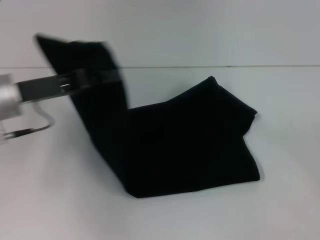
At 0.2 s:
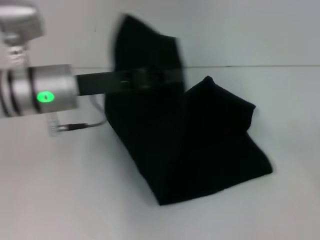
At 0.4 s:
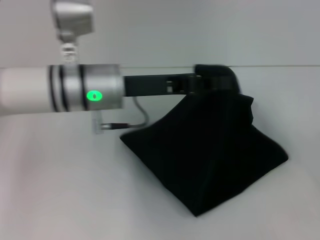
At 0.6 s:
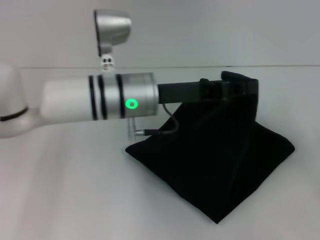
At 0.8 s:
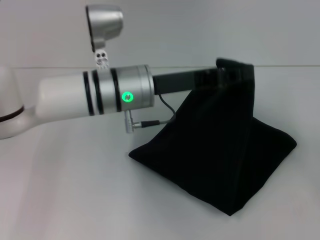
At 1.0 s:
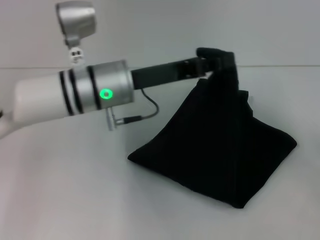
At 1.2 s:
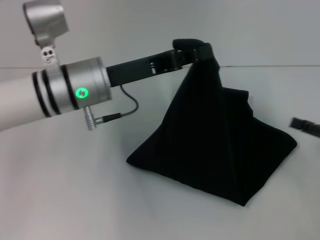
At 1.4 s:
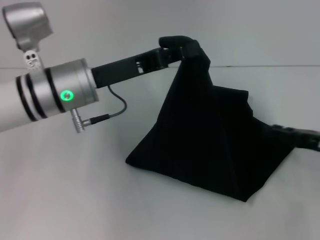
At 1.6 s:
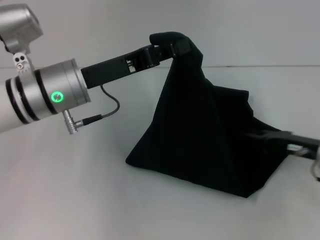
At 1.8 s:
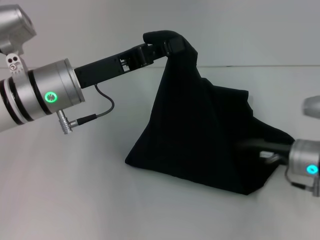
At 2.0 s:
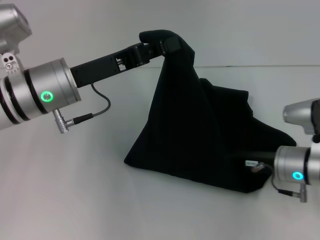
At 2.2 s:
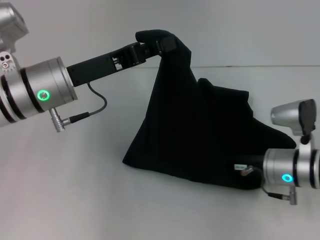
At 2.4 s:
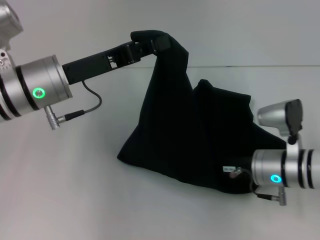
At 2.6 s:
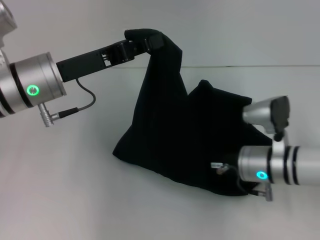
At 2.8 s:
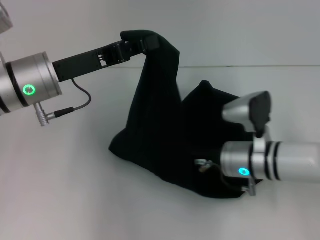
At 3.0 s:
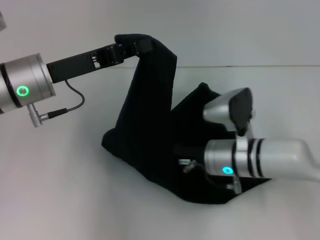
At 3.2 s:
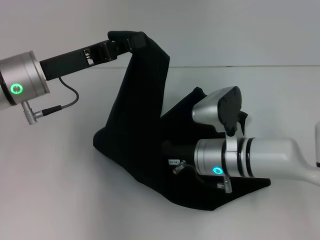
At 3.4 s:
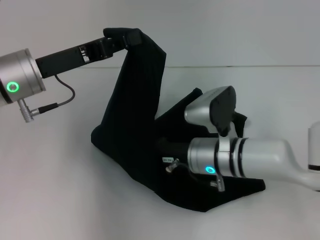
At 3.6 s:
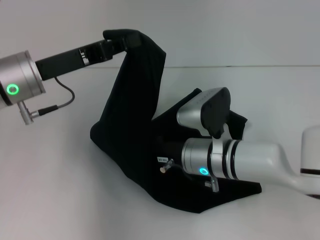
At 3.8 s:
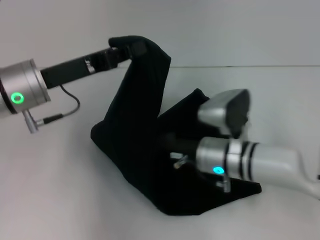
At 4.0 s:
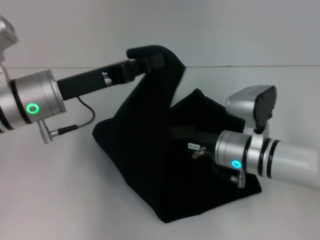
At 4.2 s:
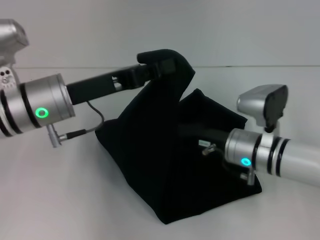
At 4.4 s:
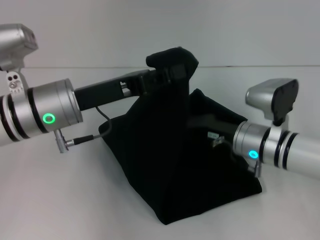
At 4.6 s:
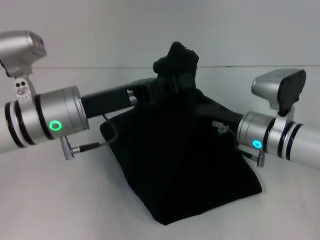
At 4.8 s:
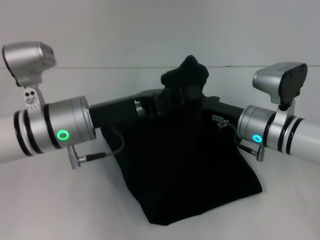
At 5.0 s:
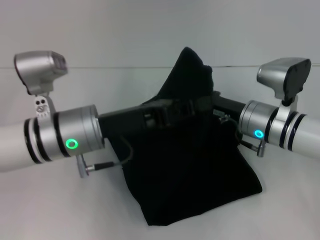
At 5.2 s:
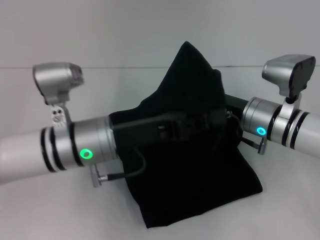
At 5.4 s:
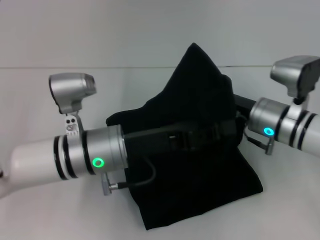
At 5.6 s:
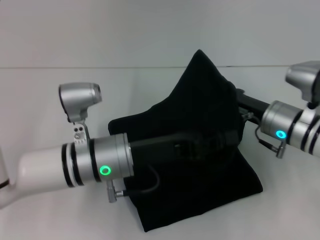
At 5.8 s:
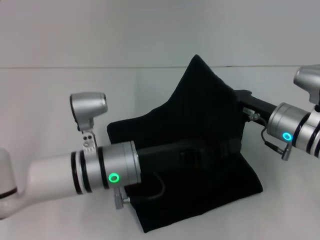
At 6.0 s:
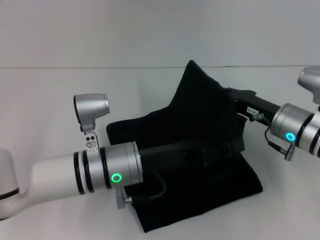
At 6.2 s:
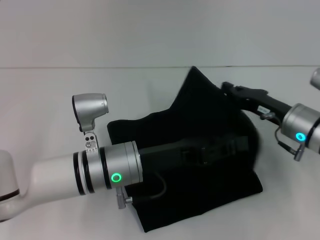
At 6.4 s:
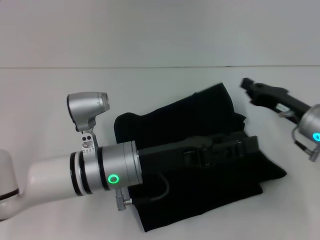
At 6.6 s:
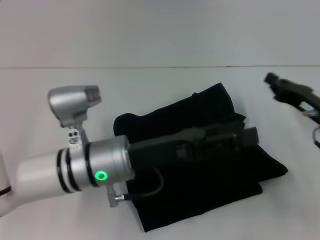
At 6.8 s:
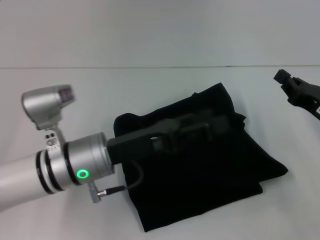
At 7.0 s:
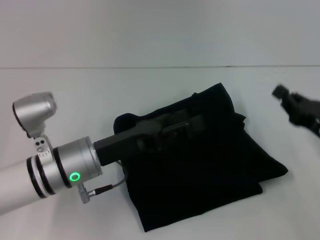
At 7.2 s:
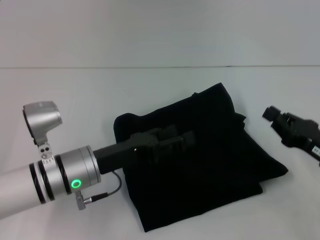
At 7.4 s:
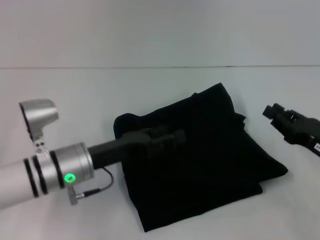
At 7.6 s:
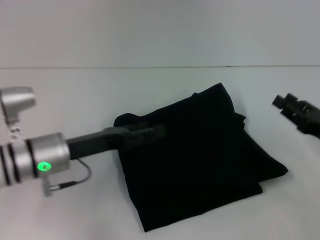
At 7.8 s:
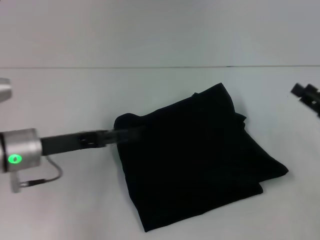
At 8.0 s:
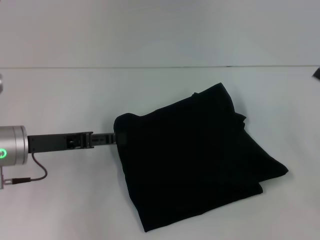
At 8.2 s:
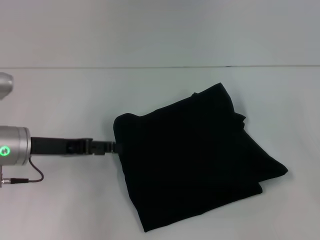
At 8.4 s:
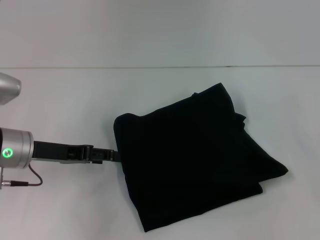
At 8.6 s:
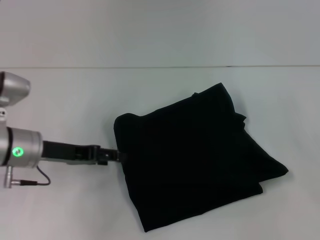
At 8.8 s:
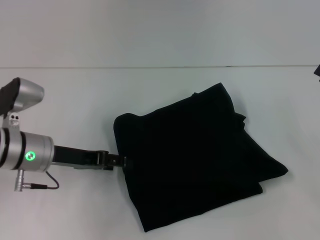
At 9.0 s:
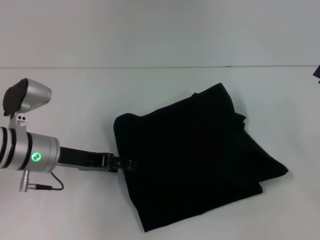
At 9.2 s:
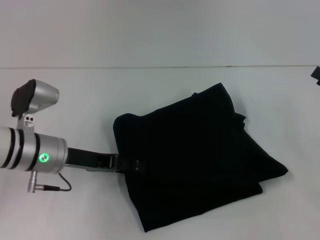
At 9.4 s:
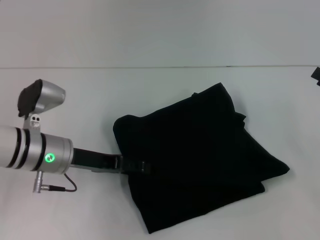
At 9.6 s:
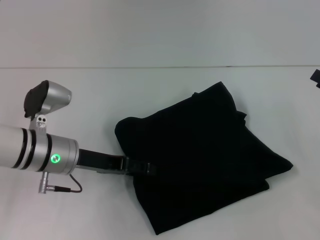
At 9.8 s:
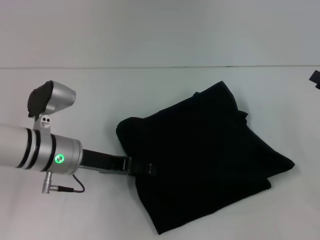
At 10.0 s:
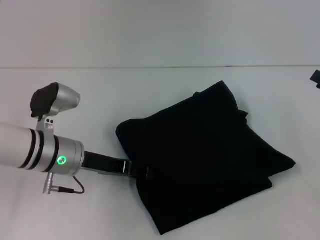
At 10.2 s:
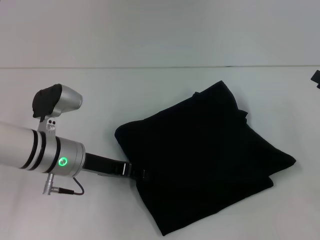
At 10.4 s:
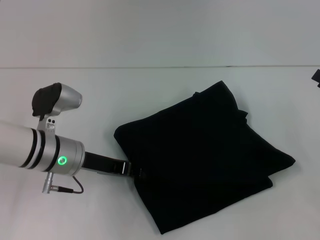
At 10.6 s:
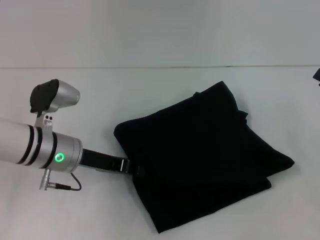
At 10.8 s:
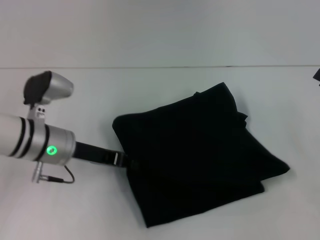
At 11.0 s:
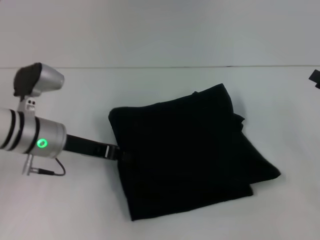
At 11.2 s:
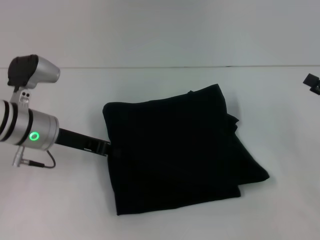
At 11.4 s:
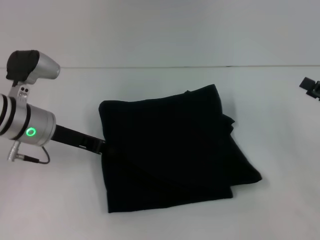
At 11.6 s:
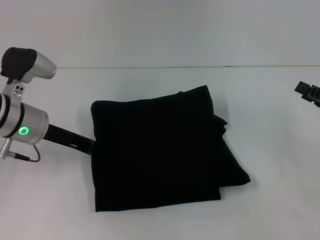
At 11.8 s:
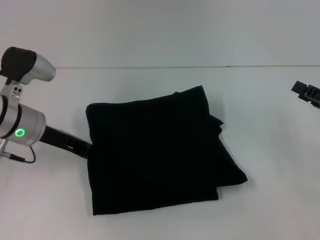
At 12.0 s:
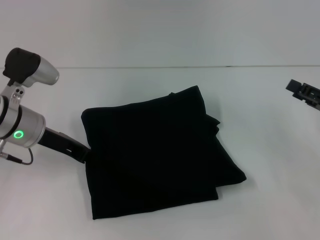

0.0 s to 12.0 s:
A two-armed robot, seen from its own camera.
Step, 0.0 to 7.2 s: Fold the clothes with your left hand.
0.0 to 1.6 s: The left gripper shifts some 10 cm to the right. The right gripper travels to the left and forward by roughly 15 cm.
1.6 to 3.0 s: The right gripper moves to the left, approximately 15 cm, and closes.
4.4 to 6.0 s: The left gripper travels downward and to the right by about 10 cm; the right gripper travels to the right by some 5 cm.
6.0 to 7.6 s: The left gripper heads to the left, covering about 10 cm, and opens, while the right gripper heads to the right and backward, covering roughly 15 cm.
7.6 to 9.0 s: The right gripper travels to the right and upward by roughly 10 cm, and opens its fingers.
9.0 to 10.4 s: The left gripper closes.
10.4 to 12.0 s: The left gripper moves about 5 cm, and closes up.

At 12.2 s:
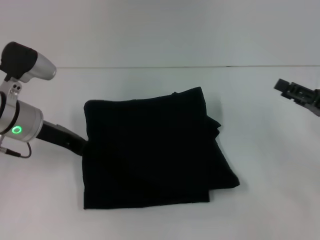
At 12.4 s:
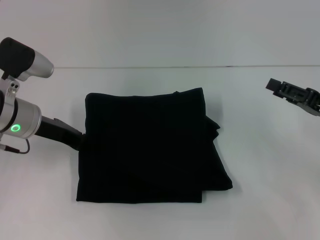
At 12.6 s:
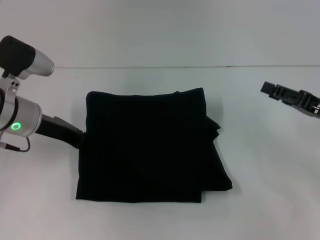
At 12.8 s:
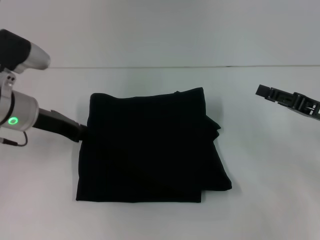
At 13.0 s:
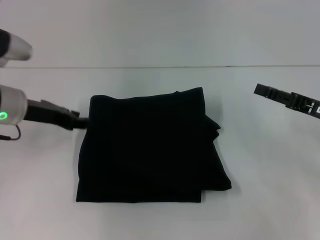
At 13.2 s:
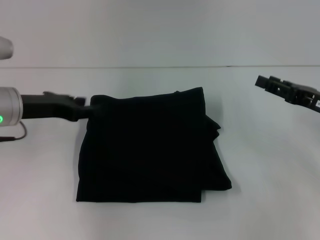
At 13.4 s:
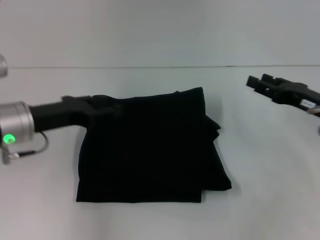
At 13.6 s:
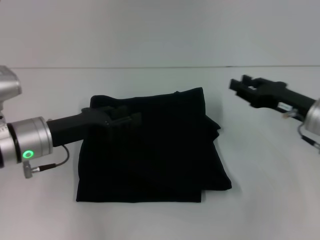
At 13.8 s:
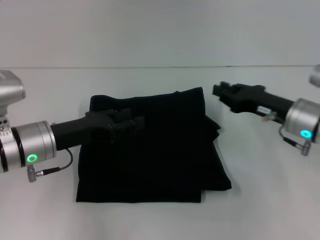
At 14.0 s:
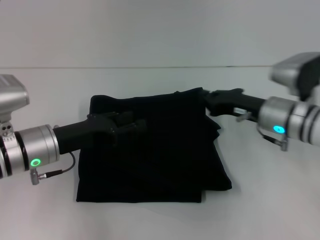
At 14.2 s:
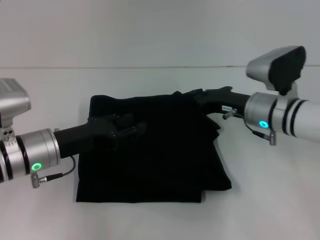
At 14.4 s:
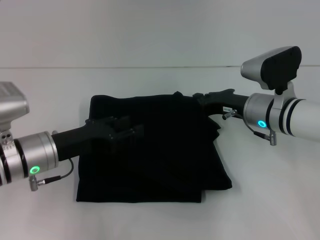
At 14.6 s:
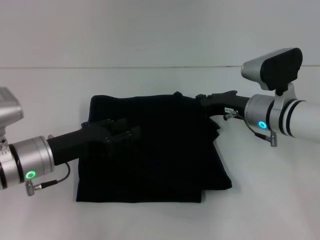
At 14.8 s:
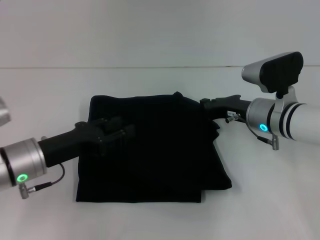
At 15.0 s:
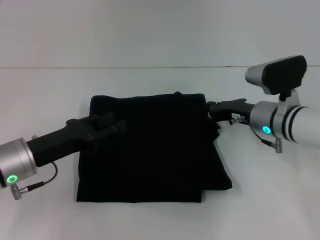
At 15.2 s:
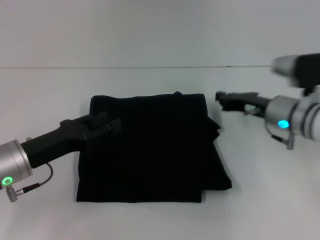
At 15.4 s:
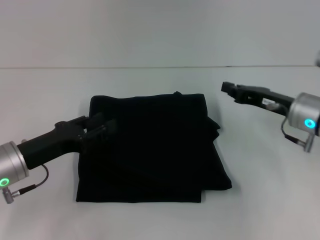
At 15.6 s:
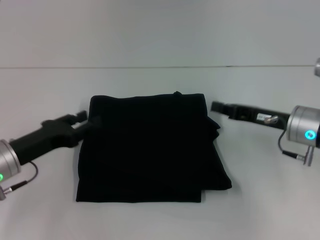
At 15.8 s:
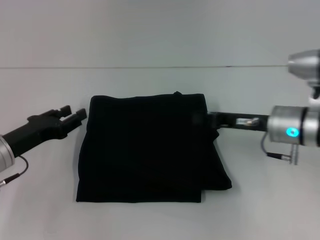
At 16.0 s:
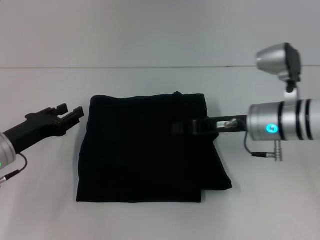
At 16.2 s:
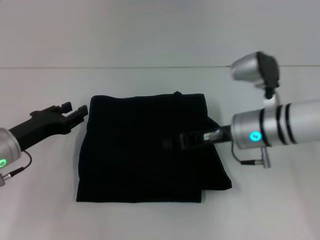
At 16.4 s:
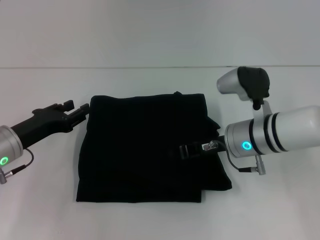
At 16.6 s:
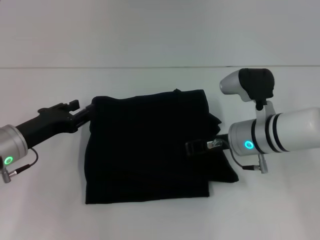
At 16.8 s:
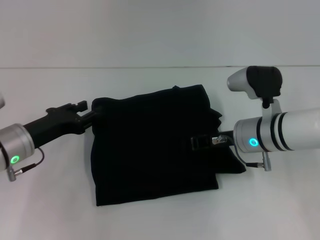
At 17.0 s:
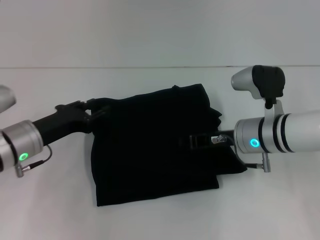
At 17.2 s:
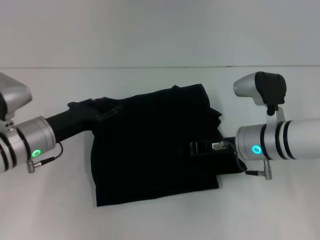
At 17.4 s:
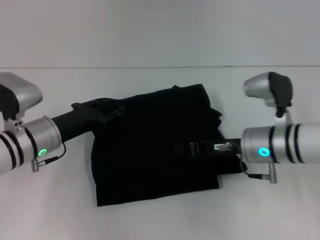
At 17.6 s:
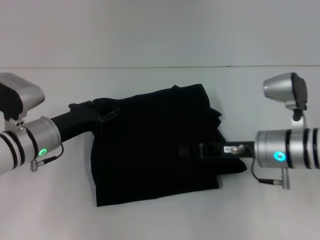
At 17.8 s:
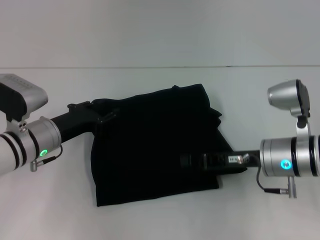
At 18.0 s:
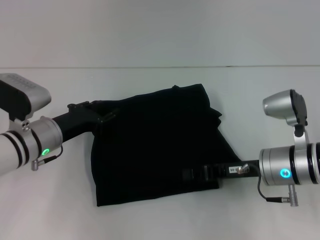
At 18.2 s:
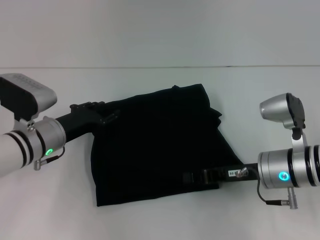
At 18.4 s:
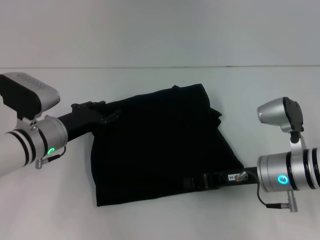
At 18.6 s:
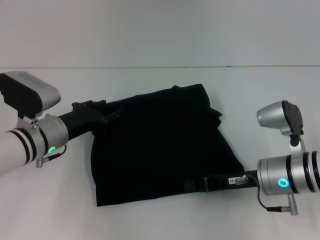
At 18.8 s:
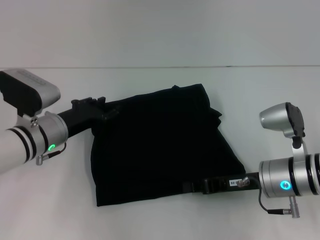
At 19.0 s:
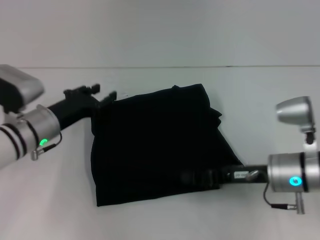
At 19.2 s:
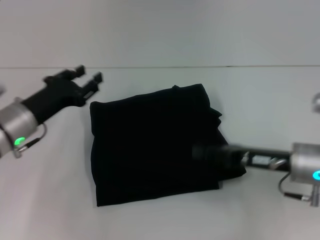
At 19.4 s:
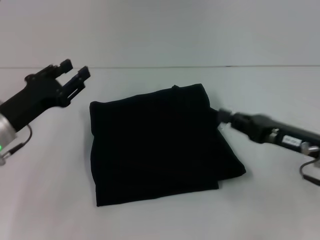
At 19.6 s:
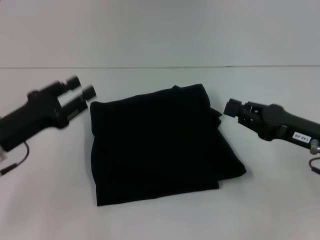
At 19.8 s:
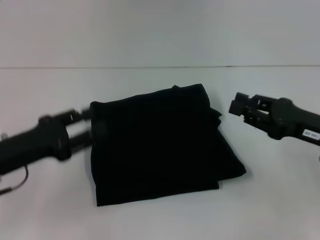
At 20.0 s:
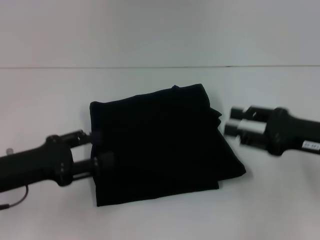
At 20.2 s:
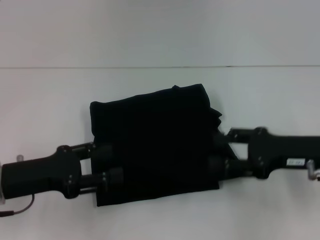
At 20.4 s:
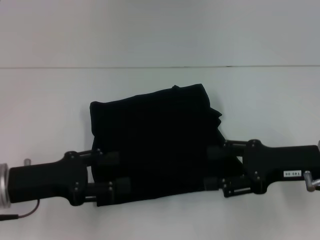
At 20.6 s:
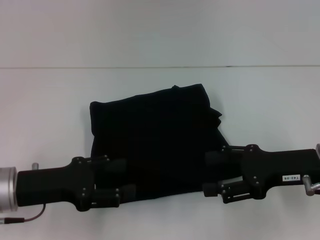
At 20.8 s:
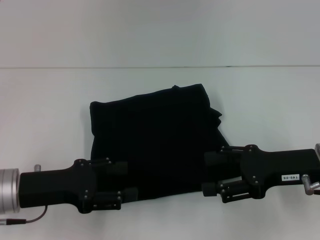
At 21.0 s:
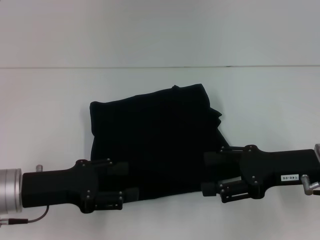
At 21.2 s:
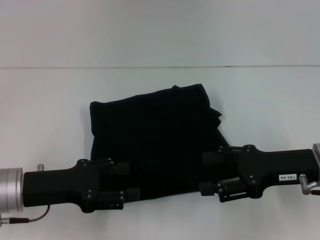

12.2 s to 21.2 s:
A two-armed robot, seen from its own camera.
12.2 to 13.8 s: The right gripper travels to the left by roughly 10 cm; the left gripper travels backward by some 5 cm, and opens its fingers.
13.8 to 15.2 s: The right gripper closes up.
15.2 to 16.6 s: The right gripper travels to the left by some 5 cm.
16.6 to 18.2 s: The right gripper goes about 5 cm backward, while the left gripper ends up approximately 5 cm from where it was.
18.2 to 19.8 s: The right gripper is displaced to the right and upward by approximately 10 cm. The left gripper heads backward, to the left and upward, covering roughly 10 cm.
19.8 to 21.2 s: The right gripper opens.
